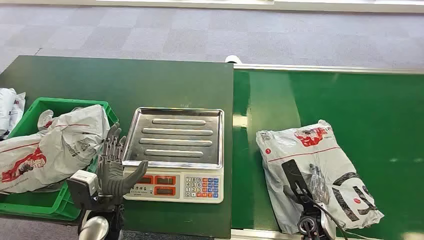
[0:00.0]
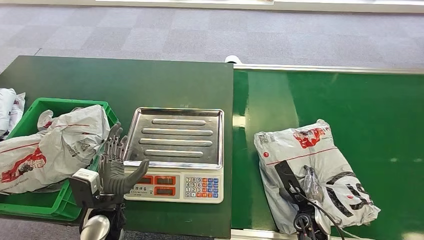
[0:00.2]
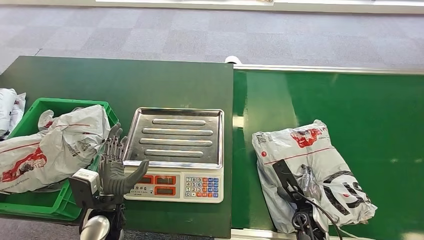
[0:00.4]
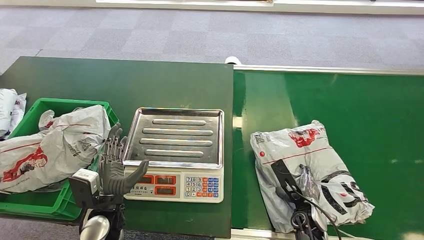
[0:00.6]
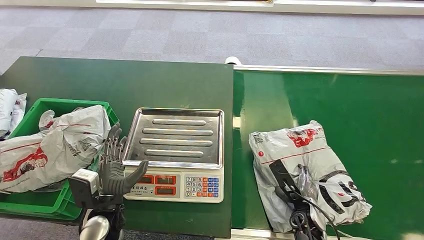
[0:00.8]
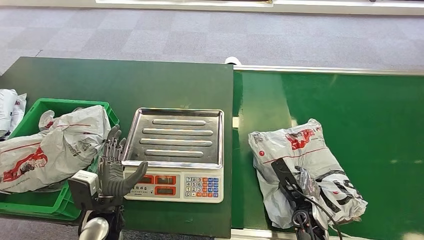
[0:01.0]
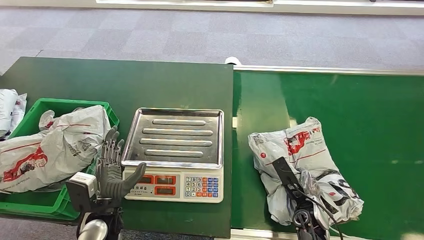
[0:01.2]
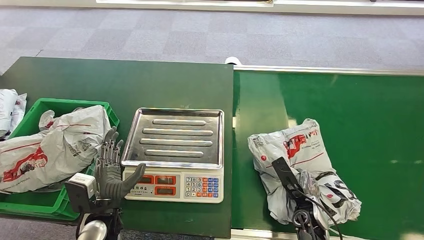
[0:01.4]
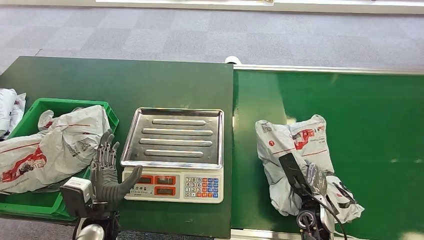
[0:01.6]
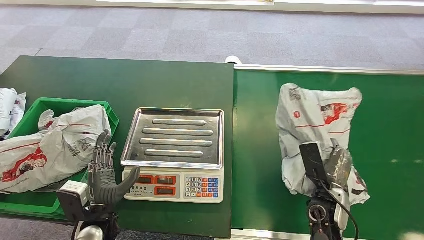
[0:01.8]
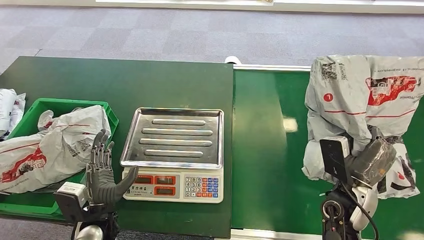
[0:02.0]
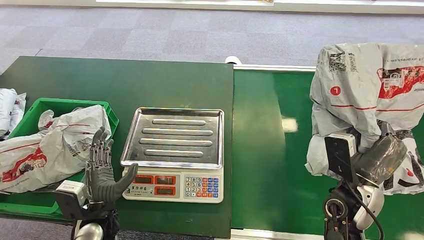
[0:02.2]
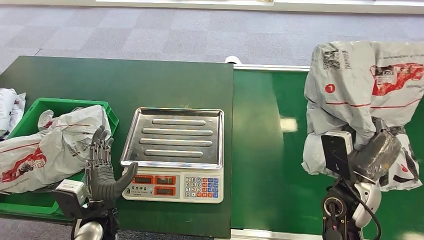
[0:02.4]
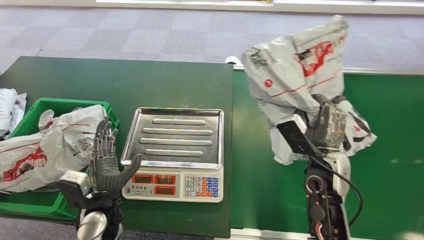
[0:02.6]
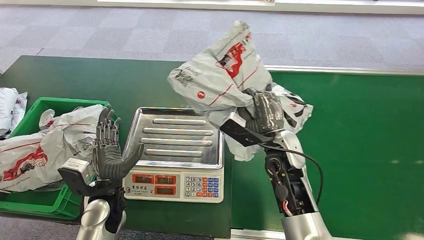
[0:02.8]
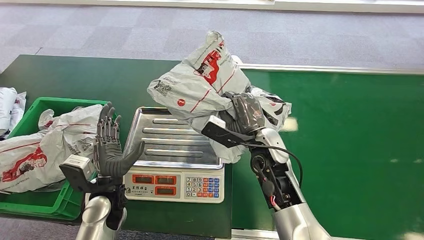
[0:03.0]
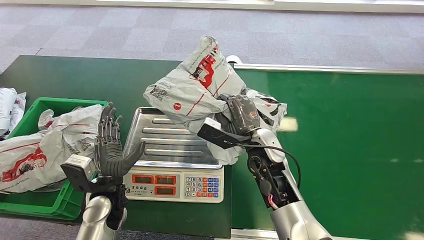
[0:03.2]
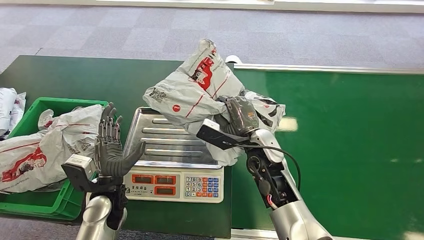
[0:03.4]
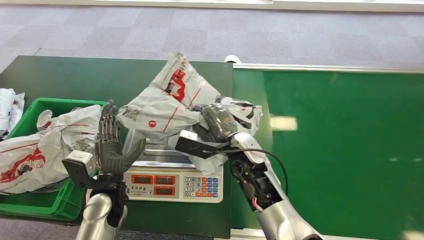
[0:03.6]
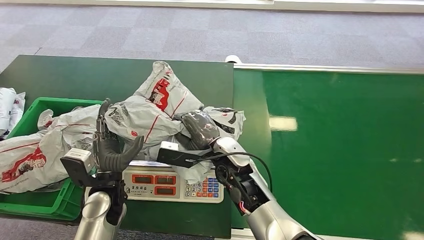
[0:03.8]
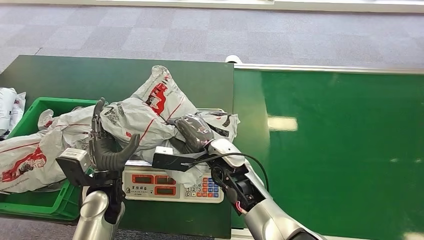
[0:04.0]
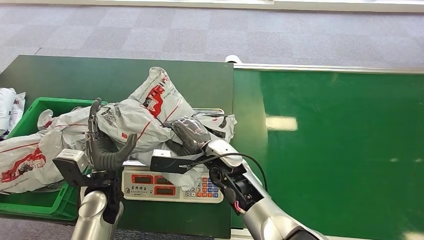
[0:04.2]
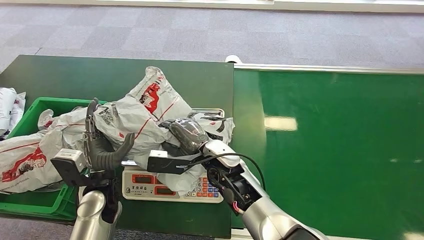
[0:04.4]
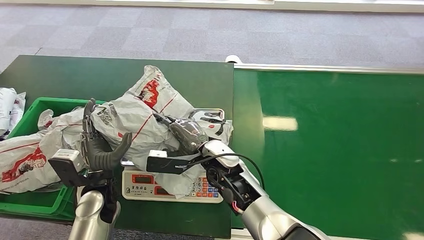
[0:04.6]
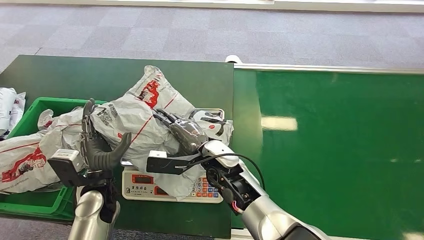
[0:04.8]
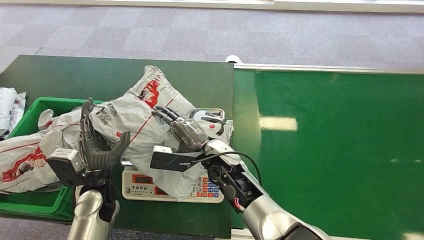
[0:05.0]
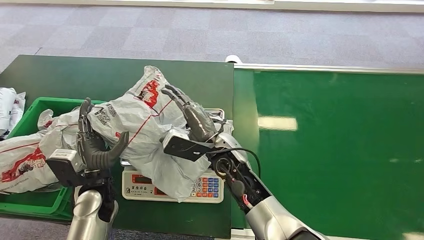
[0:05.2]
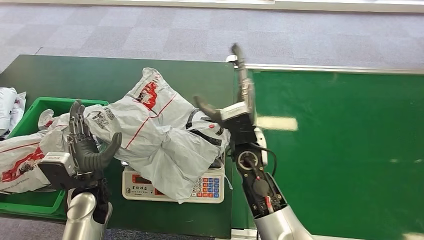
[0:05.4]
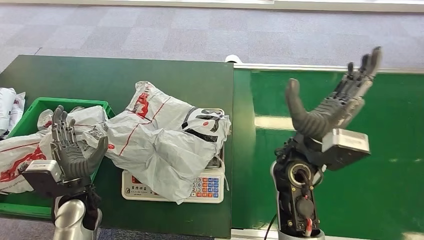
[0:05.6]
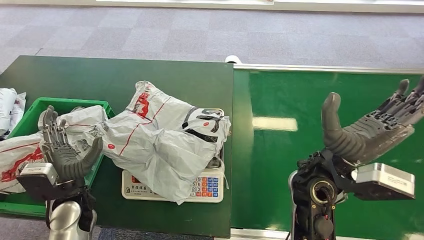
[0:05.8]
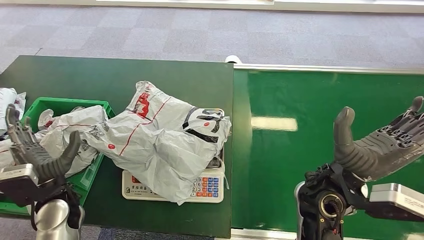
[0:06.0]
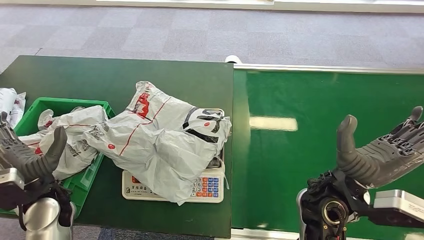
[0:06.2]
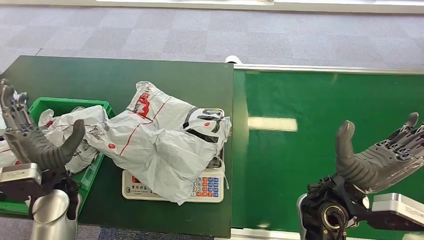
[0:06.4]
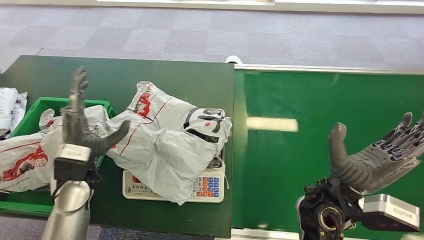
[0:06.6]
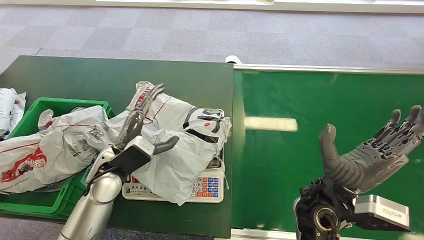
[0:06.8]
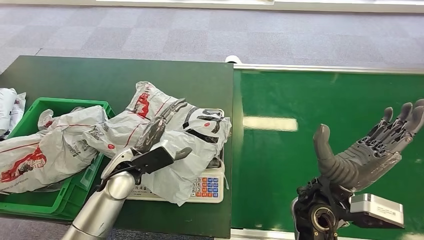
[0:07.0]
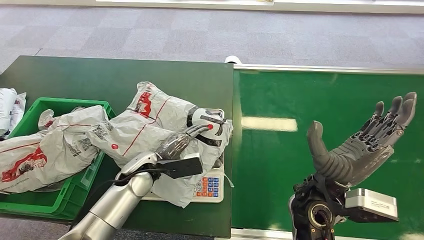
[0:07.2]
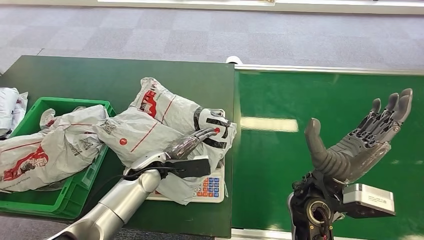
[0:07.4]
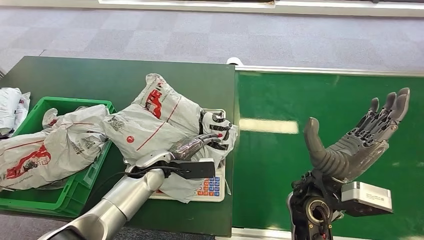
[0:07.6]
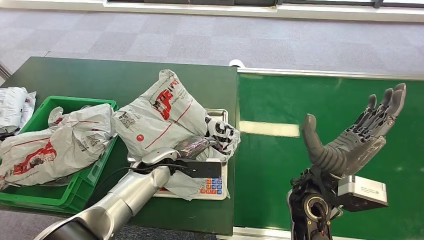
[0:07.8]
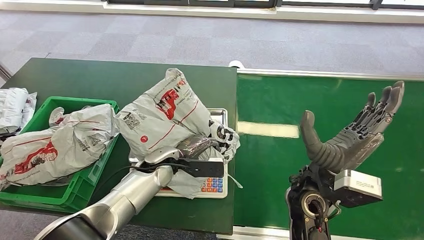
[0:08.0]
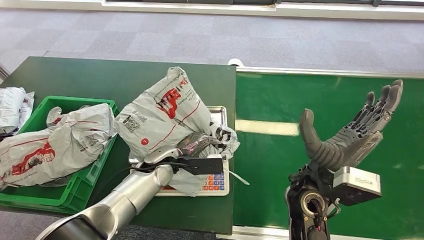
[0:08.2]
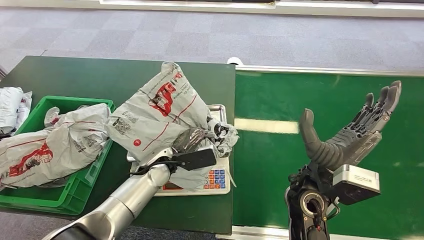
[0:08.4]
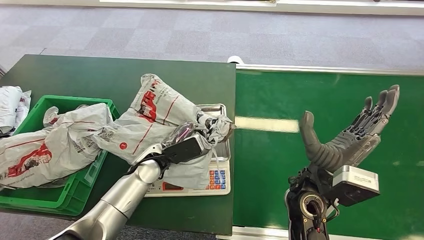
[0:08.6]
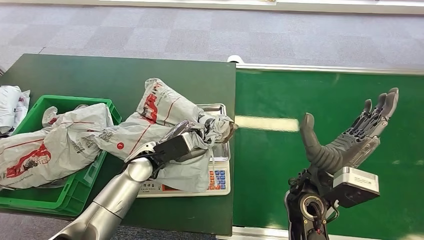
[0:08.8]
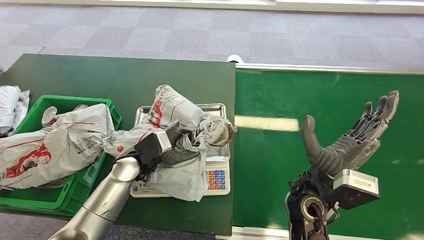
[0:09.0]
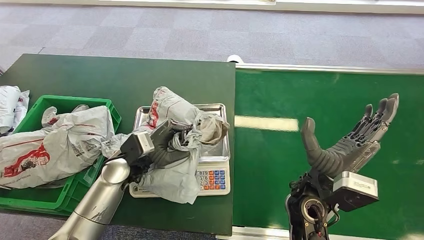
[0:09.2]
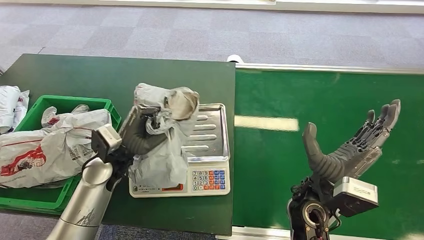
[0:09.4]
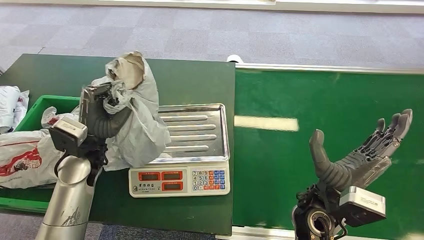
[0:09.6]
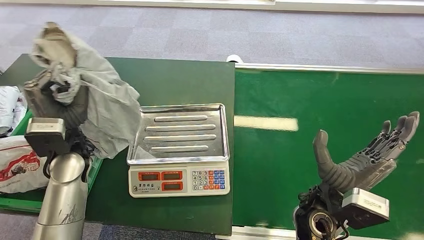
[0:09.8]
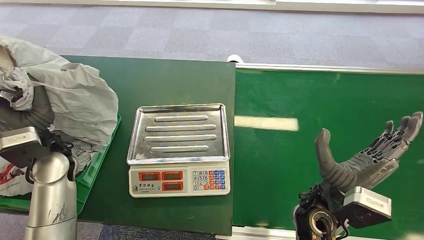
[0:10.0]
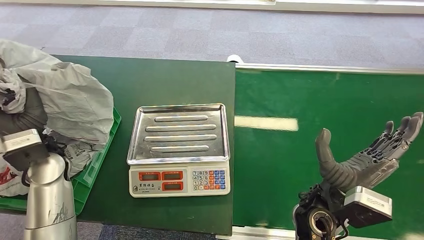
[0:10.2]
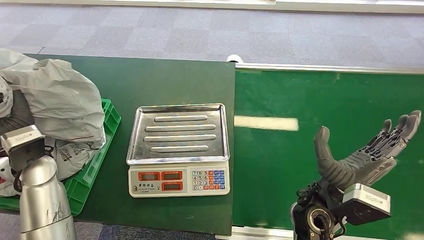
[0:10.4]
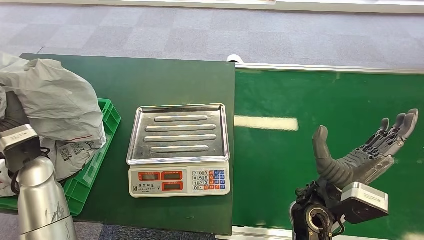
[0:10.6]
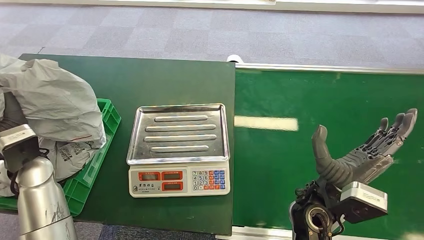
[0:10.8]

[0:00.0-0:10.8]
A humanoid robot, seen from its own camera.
Step, 0:00.0 to 0:02.0: Pick up the package from the conveyor belt.
Step, 0:02.8 to 0:05.4: Place the package onto the inbound machine.
Step, 0:07.6 to 0:09.2: Pick up the package from the inbound machine.

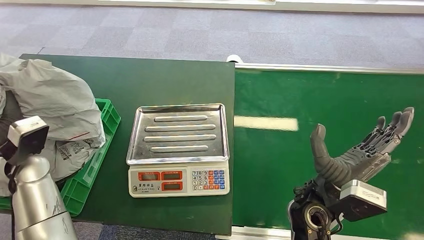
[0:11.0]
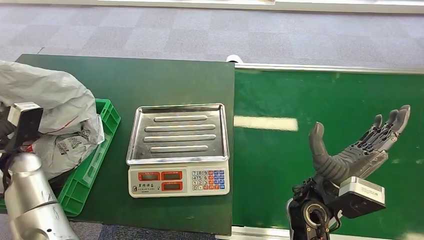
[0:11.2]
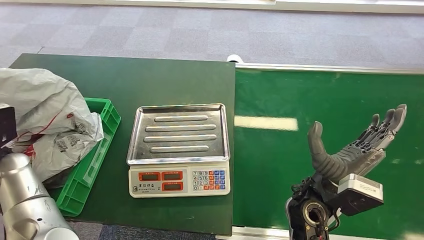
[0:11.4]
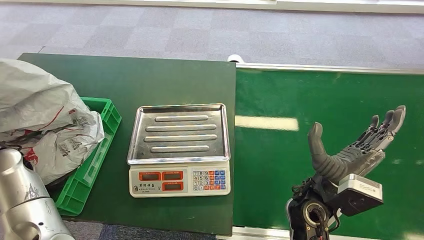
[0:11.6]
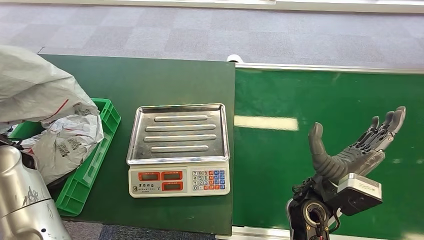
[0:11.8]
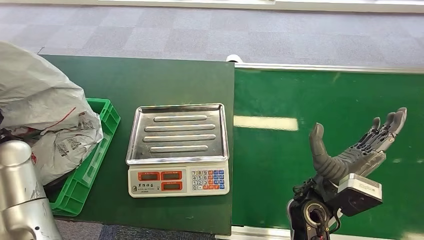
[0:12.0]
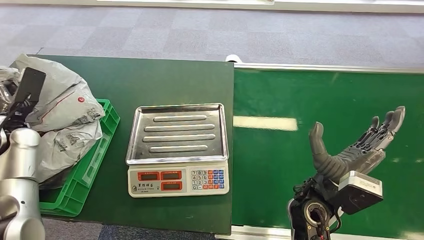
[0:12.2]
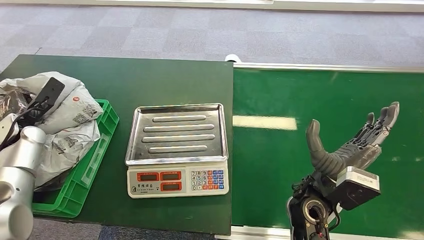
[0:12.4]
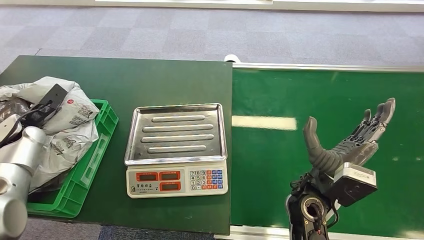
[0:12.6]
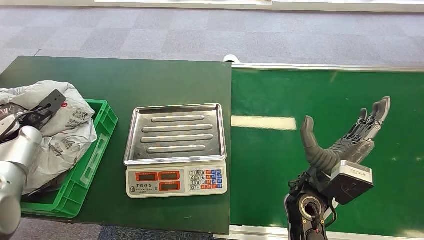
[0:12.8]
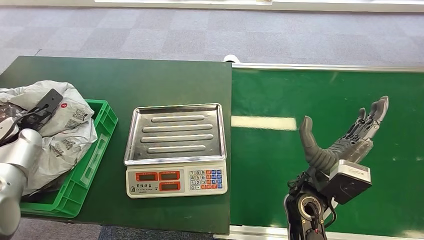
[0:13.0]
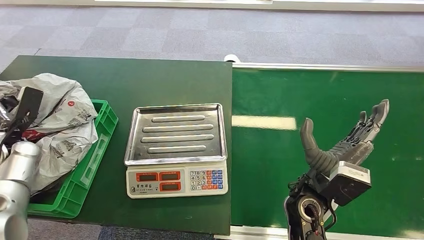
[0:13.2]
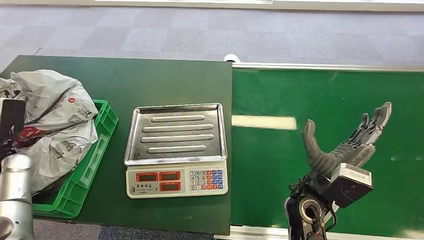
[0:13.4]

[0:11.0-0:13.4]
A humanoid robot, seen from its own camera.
Step, 0:11.0 to 0:13.2: Place the package into the parcel locker.
0:11.0 to 0:12.2: The left hand travels to the left and forward by some 10 cm.
0:12.2 to 0:13.4: The left hand is displaced downward by approximately 5 cm.
